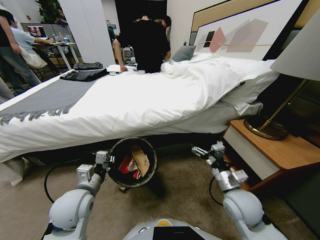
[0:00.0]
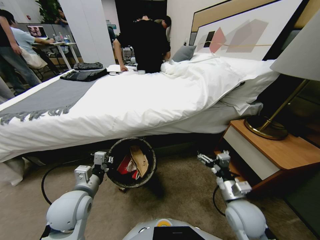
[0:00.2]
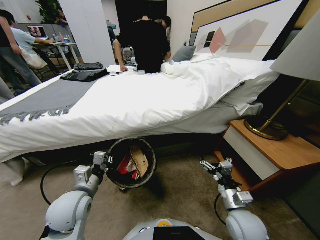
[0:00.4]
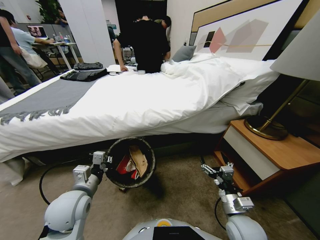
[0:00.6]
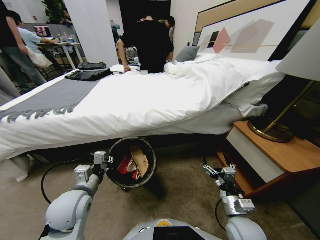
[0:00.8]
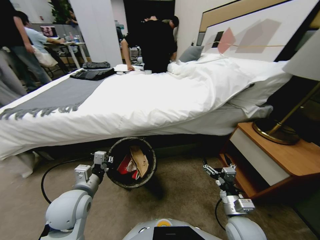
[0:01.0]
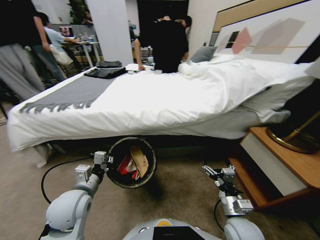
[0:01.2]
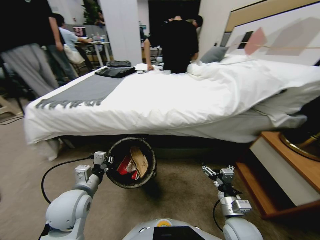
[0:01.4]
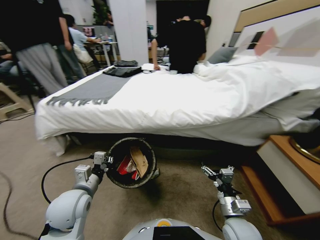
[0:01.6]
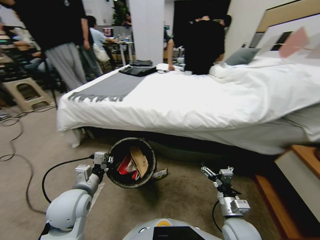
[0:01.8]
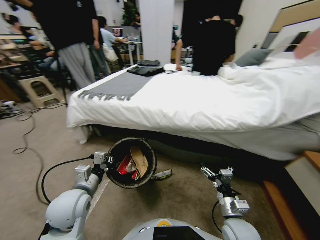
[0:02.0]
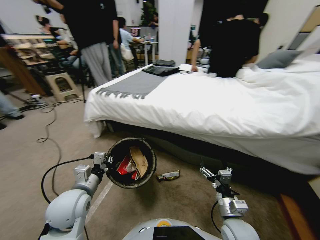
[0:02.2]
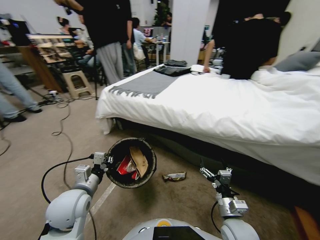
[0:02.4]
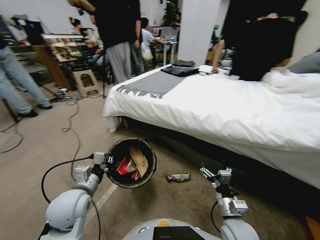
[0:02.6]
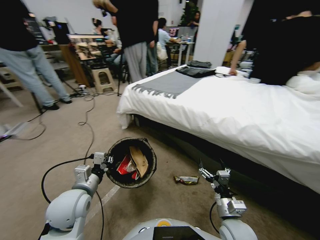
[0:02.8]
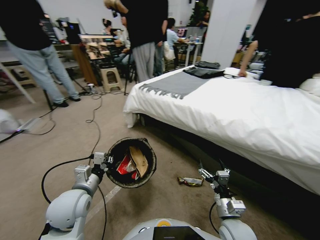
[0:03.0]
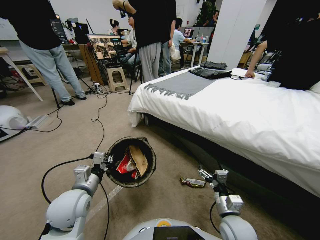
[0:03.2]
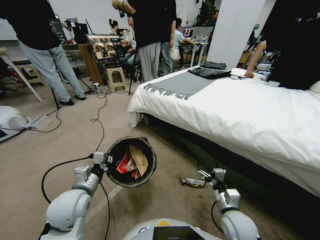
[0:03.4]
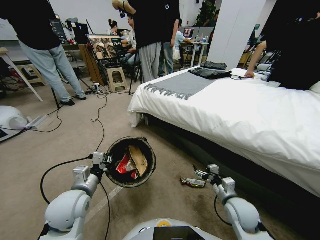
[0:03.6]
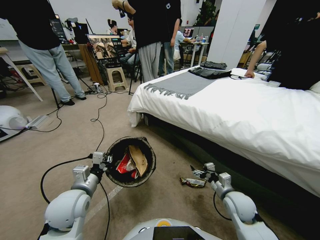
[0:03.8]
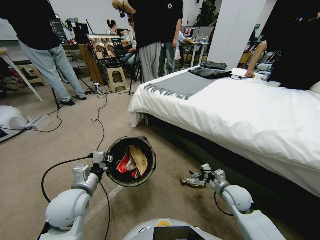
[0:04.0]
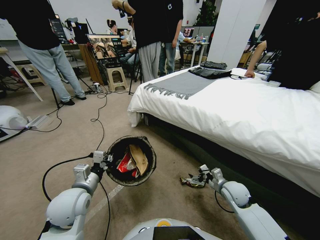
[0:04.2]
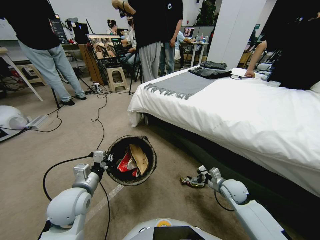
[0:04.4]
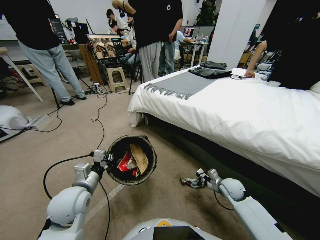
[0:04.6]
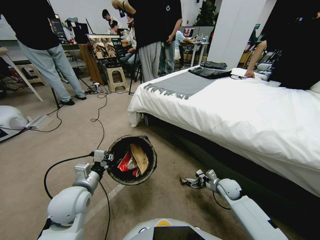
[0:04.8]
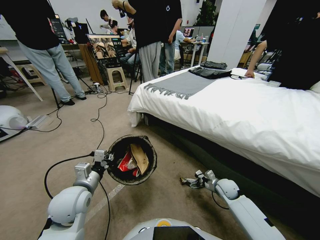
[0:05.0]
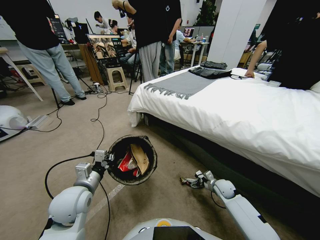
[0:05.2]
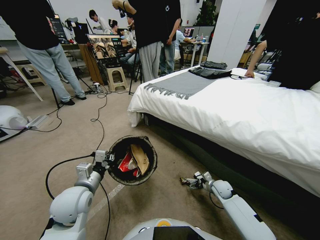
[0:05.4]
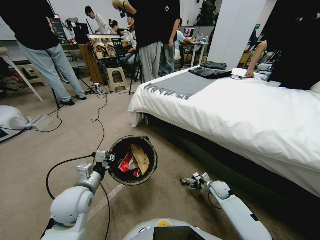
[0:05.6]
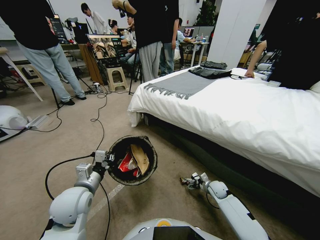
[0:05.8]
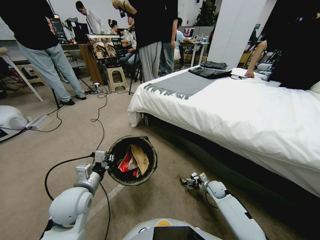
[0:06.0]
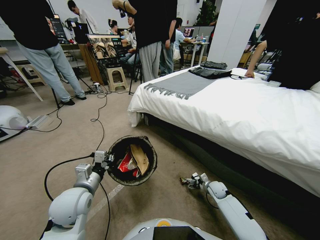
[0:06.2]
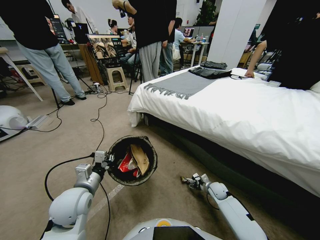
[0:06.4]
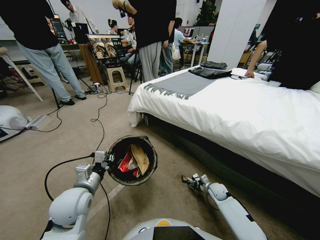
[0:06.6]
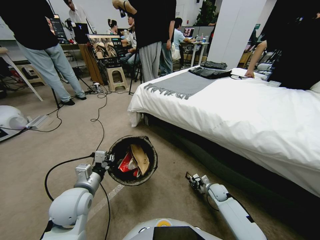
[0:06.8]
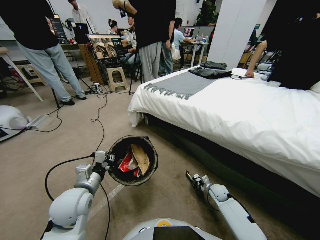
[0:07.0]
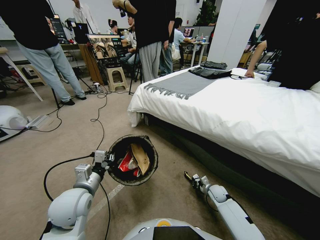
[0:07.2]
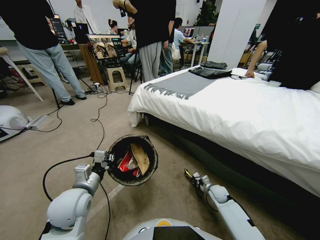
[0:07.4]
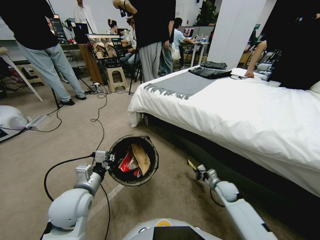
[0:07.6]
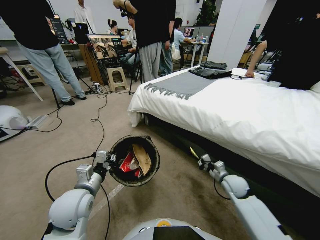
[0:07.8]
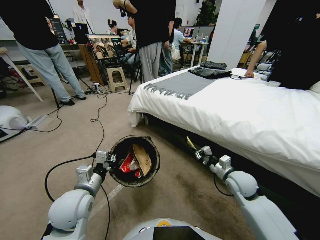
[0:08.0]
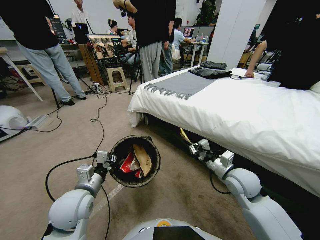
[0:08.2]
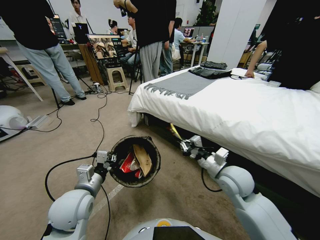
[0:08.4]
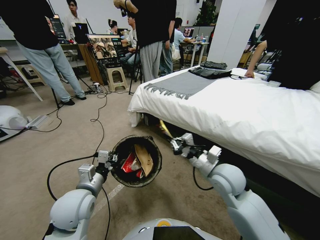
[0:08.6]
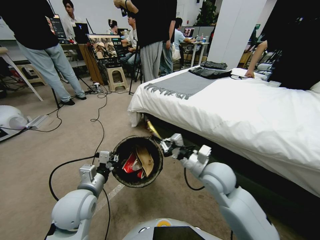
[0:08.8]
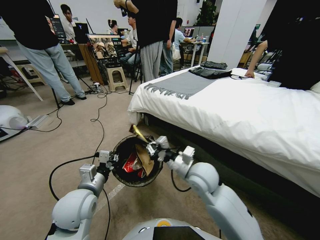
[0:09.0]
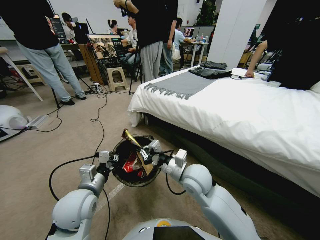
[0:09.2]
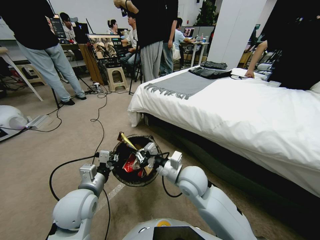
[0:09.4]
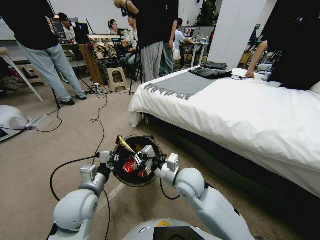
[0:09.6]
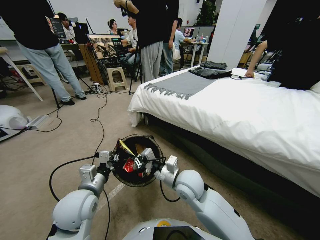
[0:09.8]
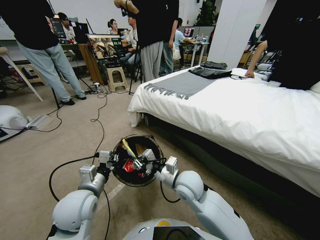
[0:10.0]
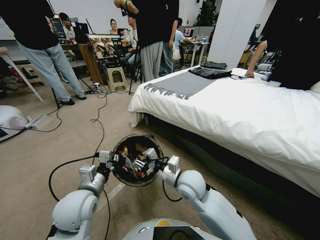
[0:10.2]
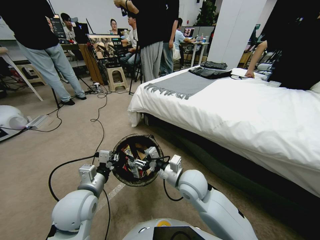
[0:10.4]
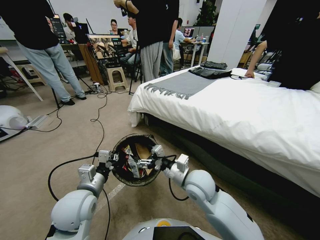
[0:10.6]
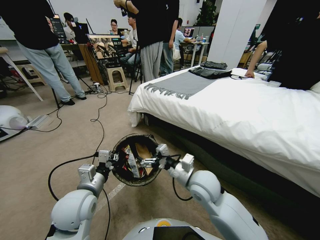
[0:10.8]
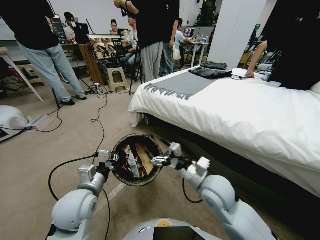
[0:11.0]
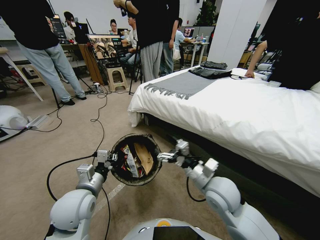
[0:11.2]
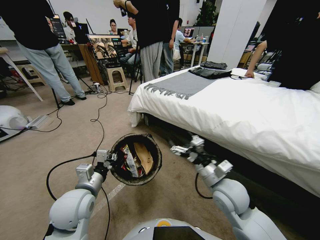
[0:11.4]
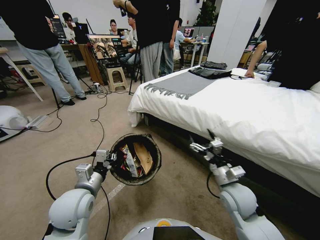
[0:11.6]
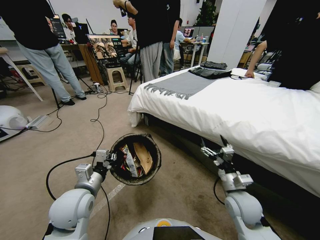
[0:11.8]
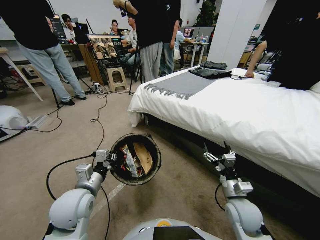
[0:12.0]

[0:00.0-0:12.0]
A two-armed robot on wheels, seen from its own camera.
Task of the whole recording: Pick up the trash bin, then pick up the garbage from the floor and place it into the trash bin.
0:00.0 to 0:01.6: The right gripper is displaced downward by approximately 5 cm.
0:03.0 to 0:04.4: The right gripper heads forward and to the right, covering approximately 20 cm.
0:04.4 to 0:06.0: The right gripper goes some 10 cm downward.
0:06.0 to 0:07.6: The right gripper heads upward, covering roughly 10 cm, and closes.
0:07.6 to 0:09.0: The right gripper travels to the left and upward by roughly 30 cm.
0:09.0 to 0:10.4: The right gripper opens.
0:10.4 to 0:12.0: The right gripper shifts roughly 20 cm to the right, downward and backward.

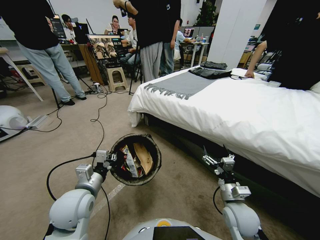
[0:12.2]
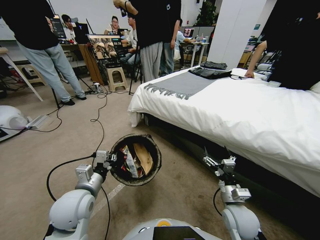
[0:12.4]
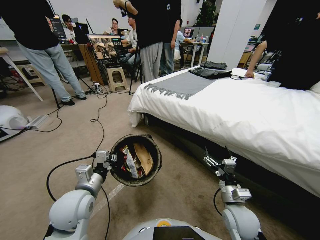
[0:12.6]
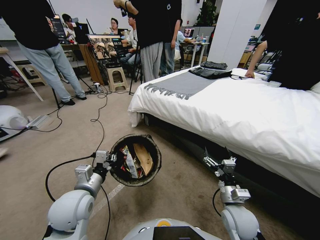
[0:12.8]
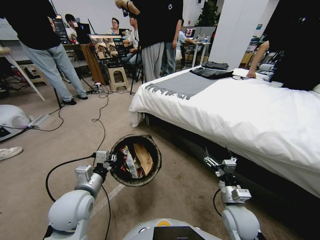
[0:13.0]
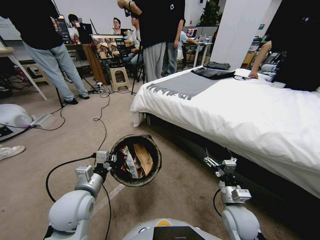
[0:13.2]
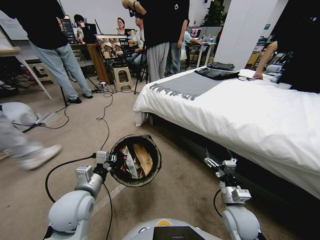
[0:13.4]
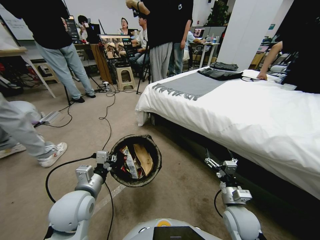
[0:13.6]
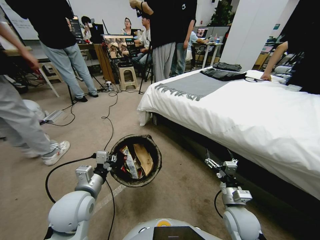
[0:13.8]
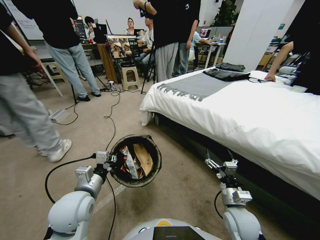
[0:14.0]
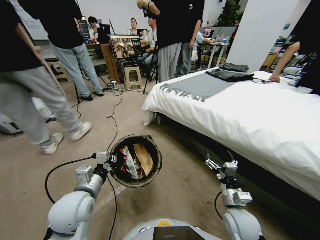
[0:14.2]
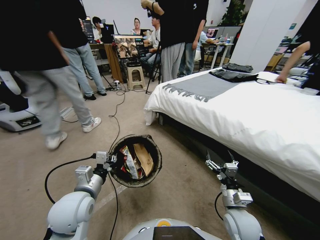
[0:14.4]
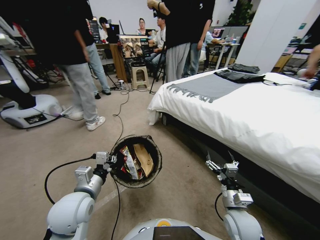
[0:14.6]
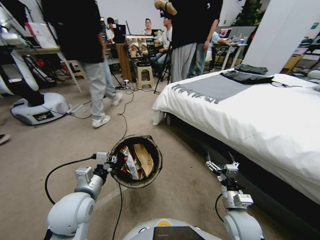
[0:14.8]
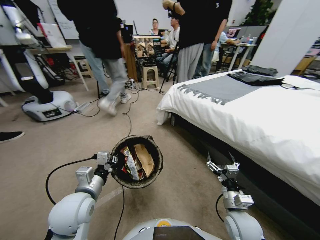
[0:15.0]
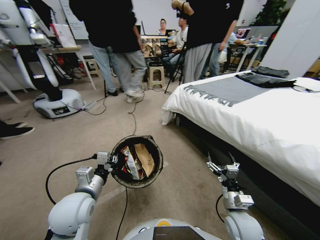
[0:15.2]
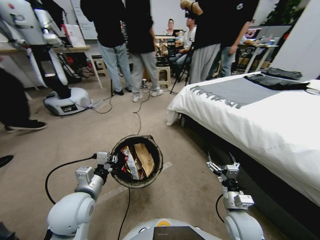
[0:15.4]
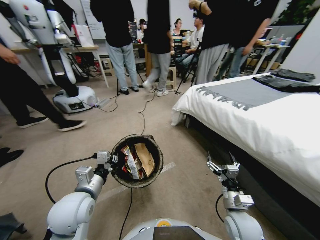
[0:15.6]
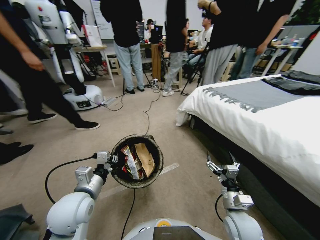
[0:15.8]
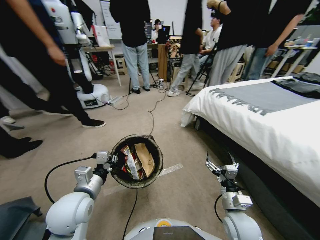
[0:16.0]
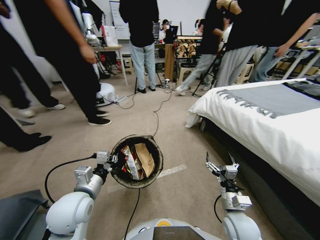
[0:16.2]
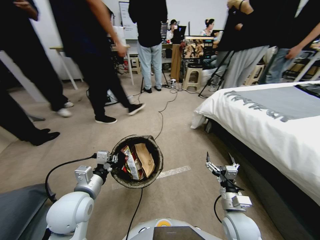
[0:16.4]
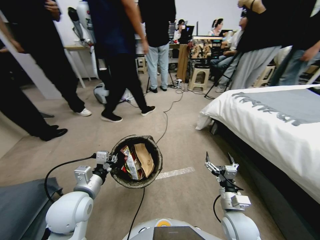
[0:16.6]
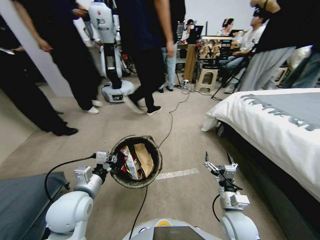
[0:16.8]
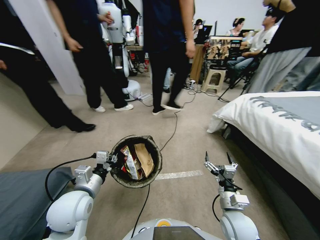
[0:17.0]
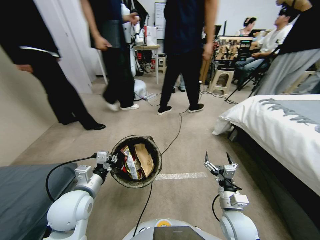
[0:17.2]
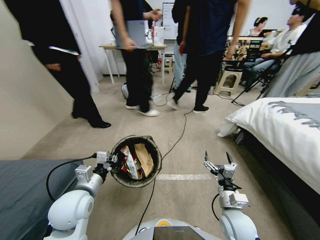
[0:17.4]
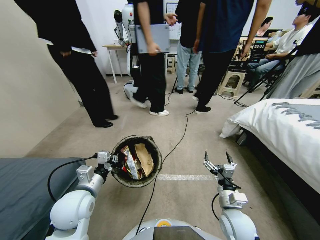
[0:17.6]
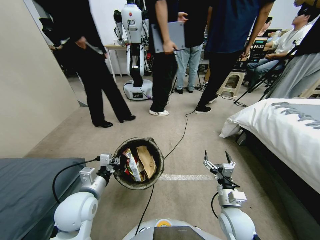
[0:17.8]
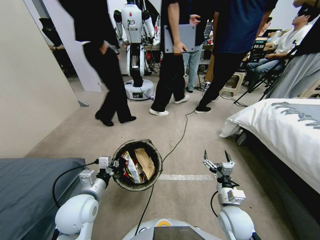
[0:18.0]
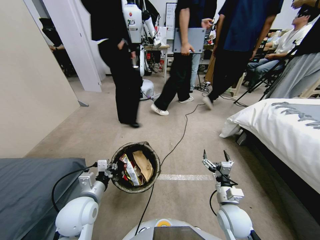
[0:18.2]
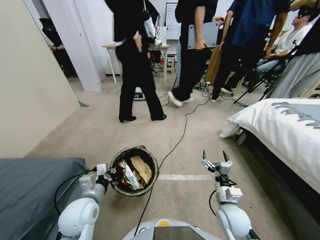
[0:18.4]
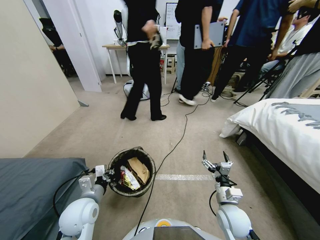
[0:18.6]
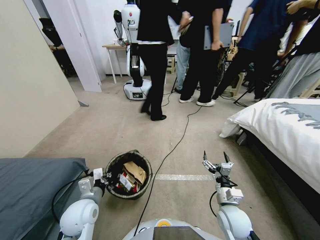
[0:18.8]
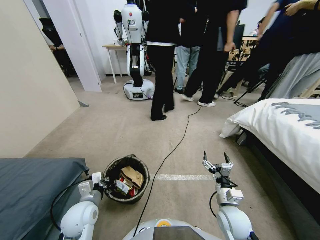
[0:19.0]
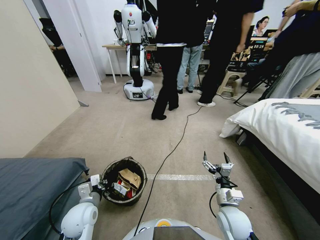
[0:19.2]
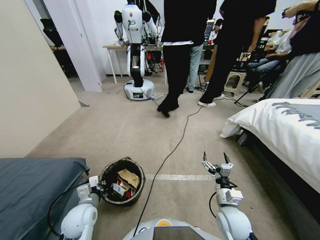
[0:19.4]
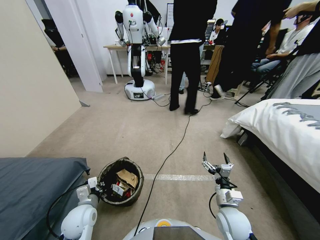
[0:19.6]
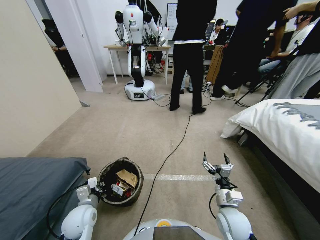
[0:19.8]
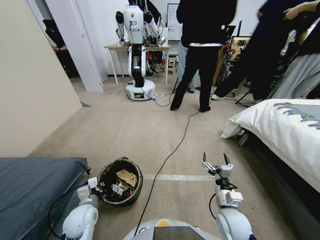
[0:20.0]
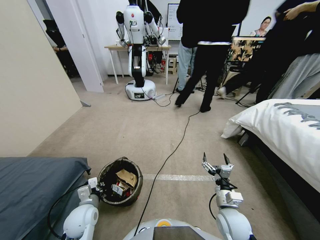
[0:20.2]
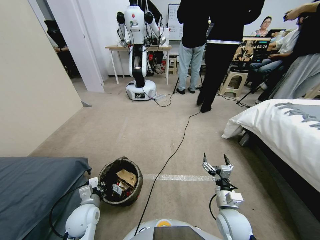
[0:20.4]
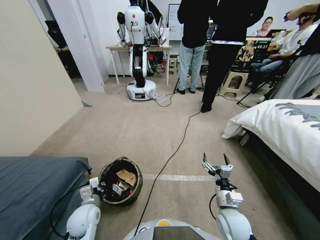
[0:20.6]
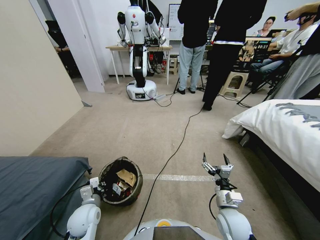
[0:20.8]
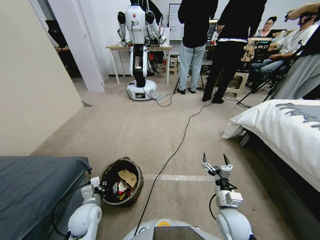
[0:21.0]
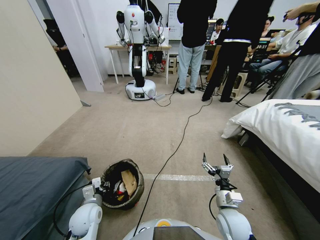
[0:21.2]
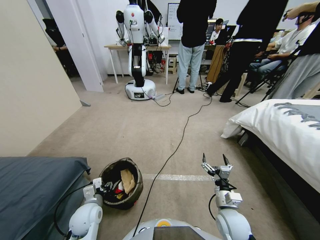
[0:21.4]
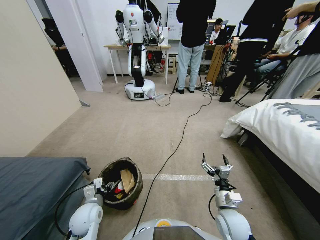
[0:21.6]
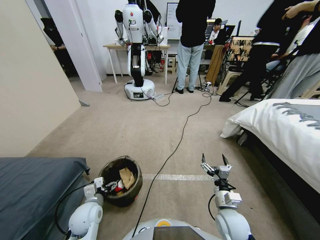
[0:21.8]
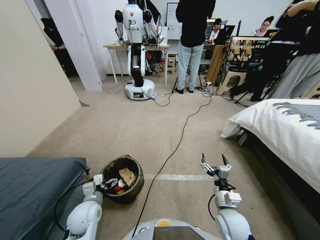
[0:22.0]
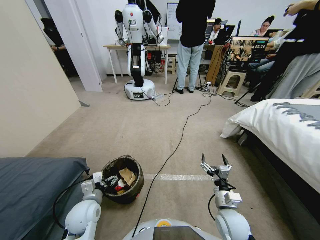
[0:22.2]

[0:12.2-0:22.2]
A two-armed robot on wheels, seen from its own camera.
Task of the whole recording: Pick up the trash bin, then pick up the garbage from the floor and place it into the trash bin.
0:18.0 to 0:19.4: The left gripper goes some 10 cm downward.
0:20.8 to 0:22.2: The left gripper opens its fingers.
